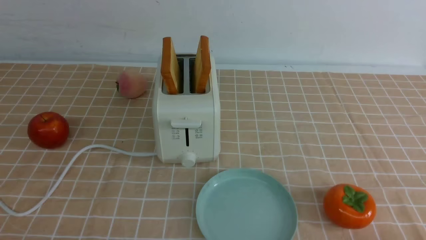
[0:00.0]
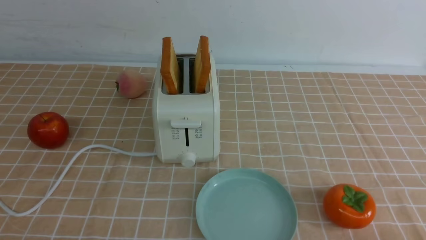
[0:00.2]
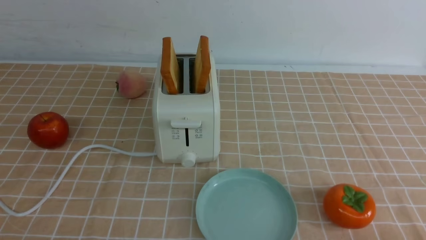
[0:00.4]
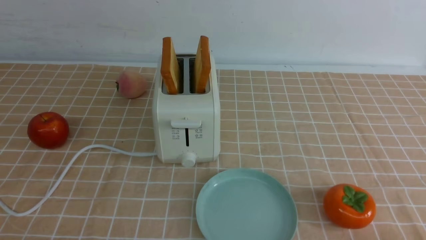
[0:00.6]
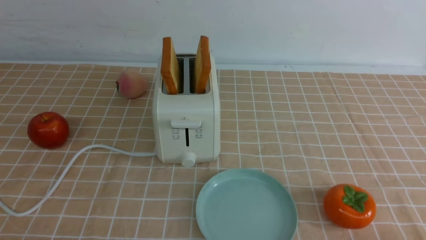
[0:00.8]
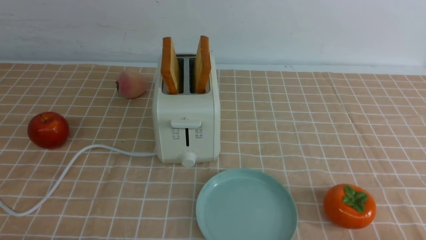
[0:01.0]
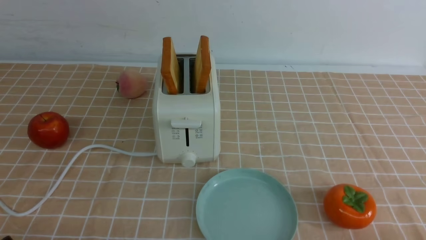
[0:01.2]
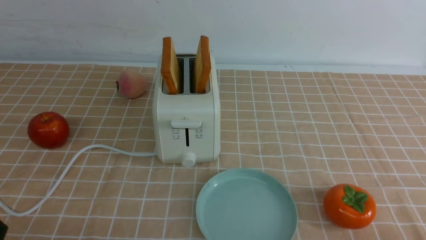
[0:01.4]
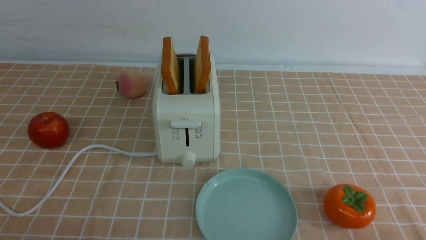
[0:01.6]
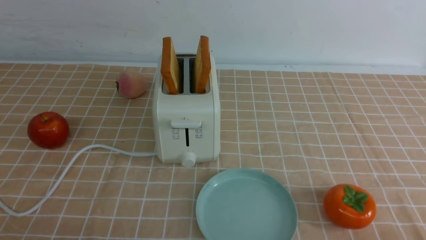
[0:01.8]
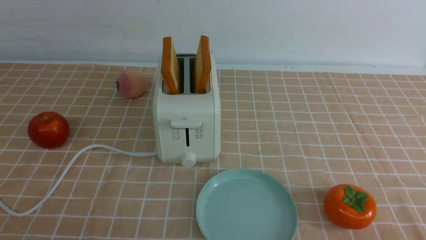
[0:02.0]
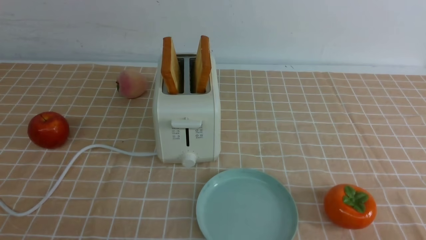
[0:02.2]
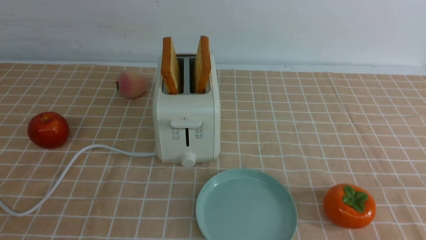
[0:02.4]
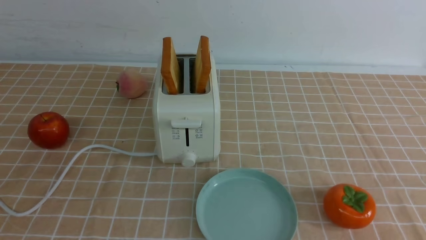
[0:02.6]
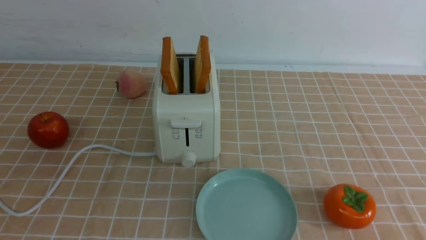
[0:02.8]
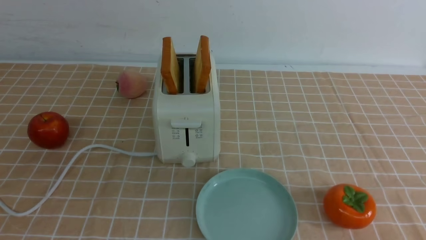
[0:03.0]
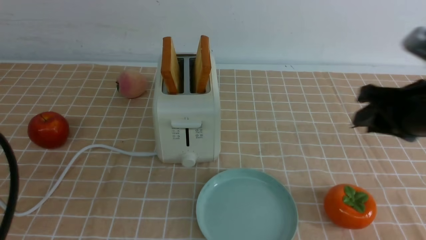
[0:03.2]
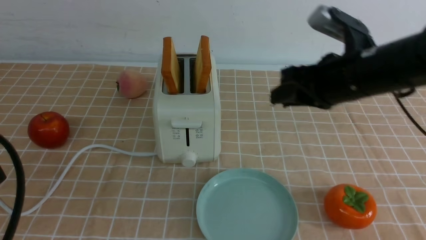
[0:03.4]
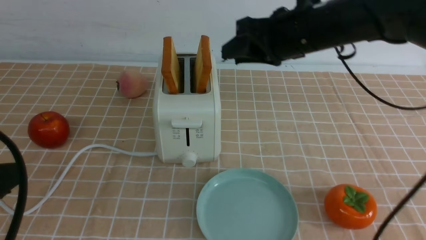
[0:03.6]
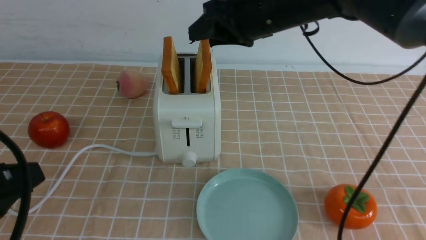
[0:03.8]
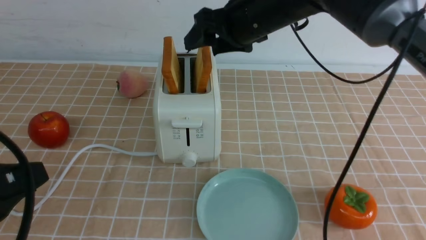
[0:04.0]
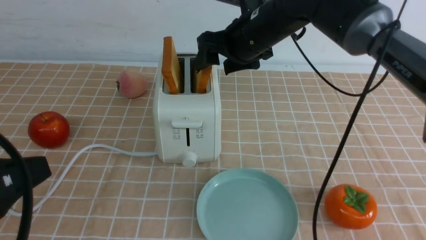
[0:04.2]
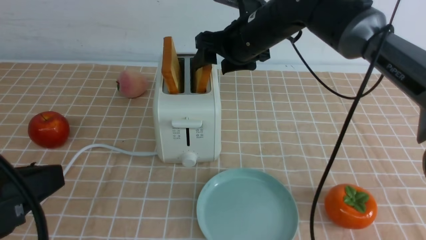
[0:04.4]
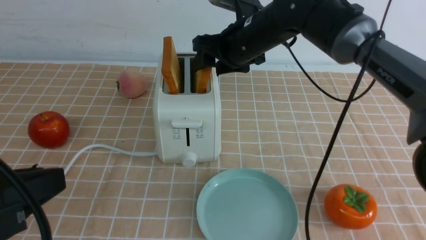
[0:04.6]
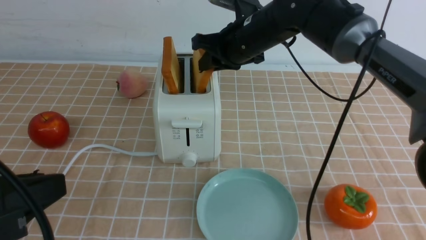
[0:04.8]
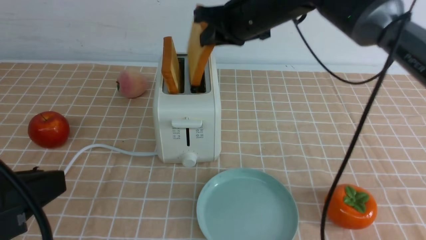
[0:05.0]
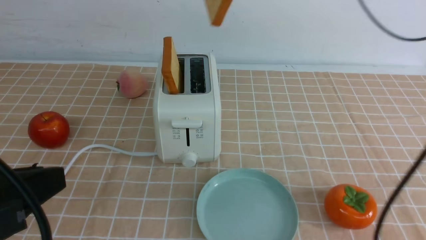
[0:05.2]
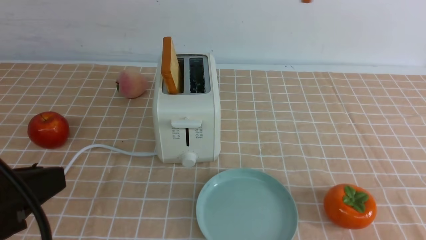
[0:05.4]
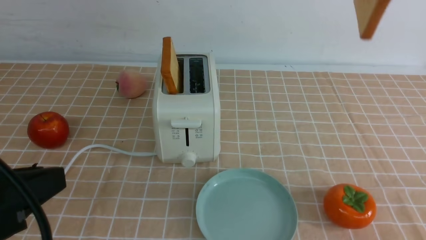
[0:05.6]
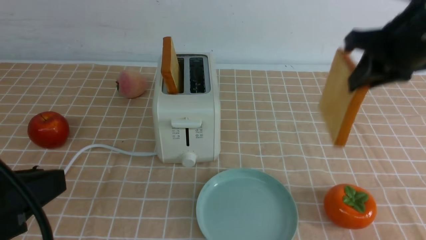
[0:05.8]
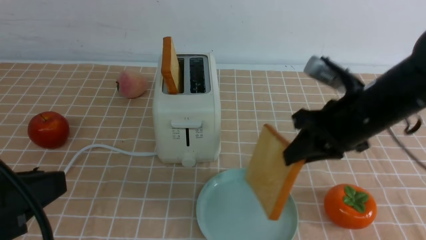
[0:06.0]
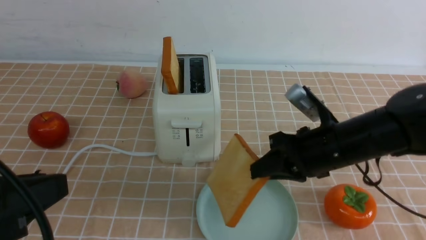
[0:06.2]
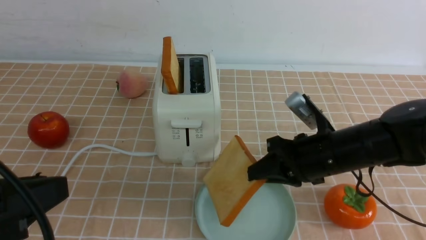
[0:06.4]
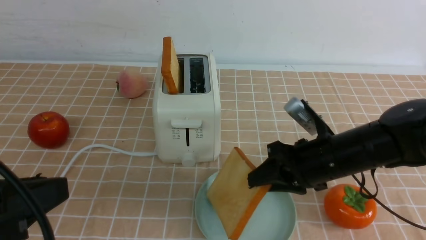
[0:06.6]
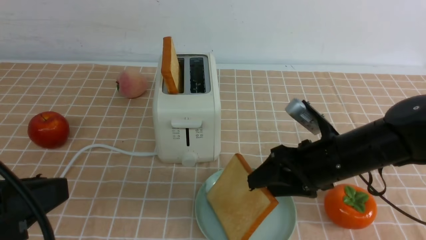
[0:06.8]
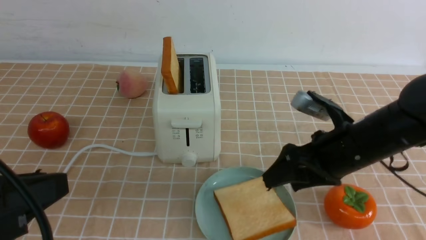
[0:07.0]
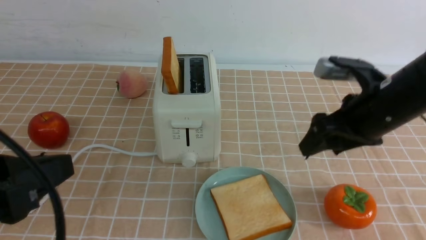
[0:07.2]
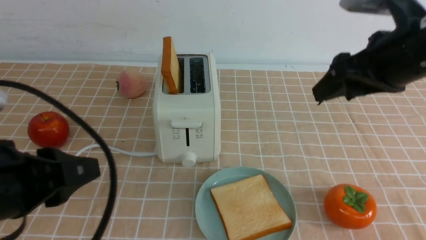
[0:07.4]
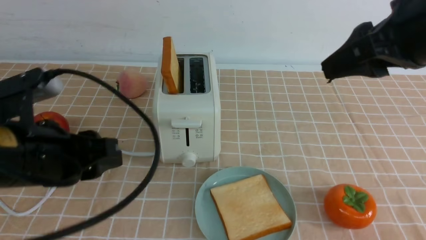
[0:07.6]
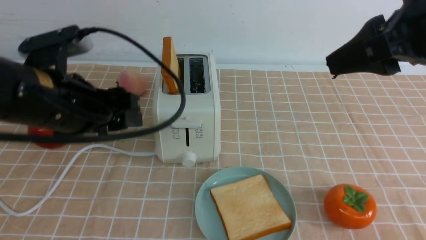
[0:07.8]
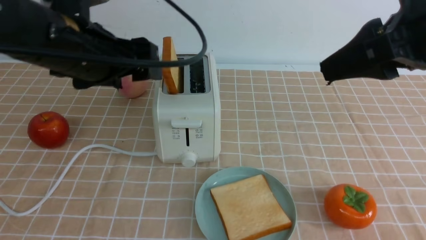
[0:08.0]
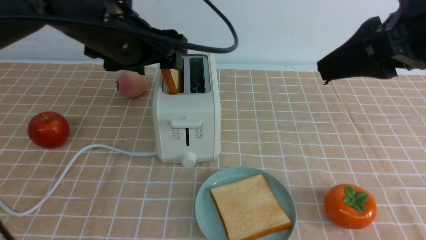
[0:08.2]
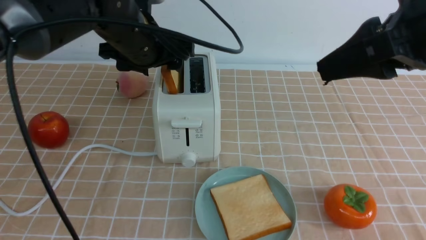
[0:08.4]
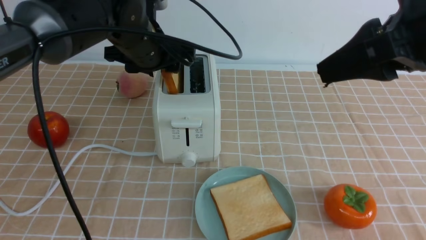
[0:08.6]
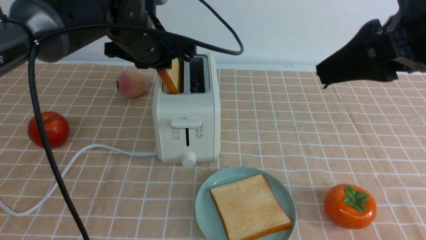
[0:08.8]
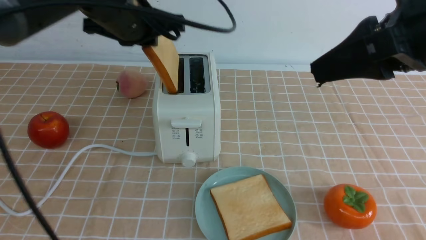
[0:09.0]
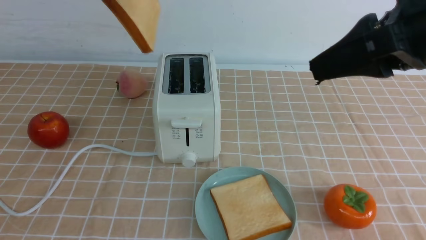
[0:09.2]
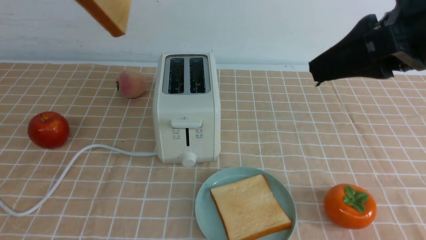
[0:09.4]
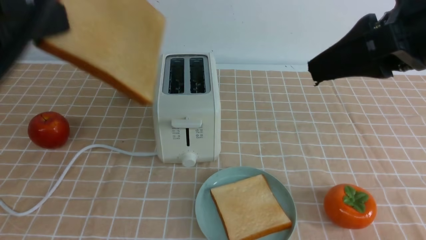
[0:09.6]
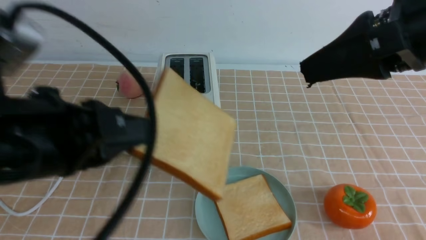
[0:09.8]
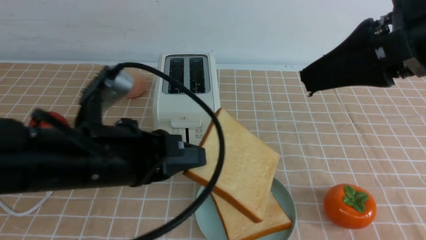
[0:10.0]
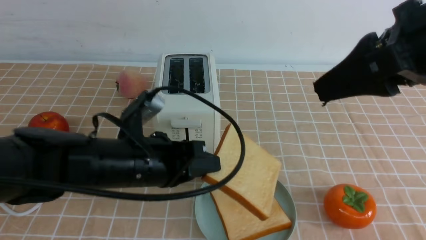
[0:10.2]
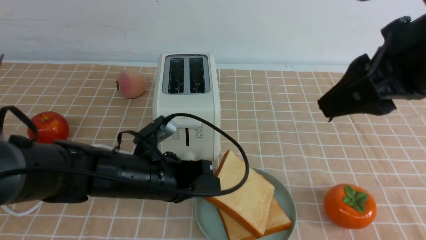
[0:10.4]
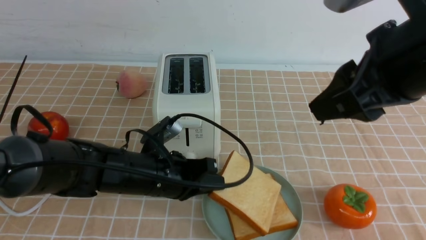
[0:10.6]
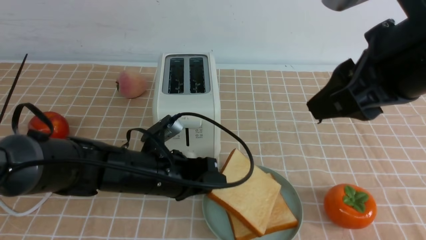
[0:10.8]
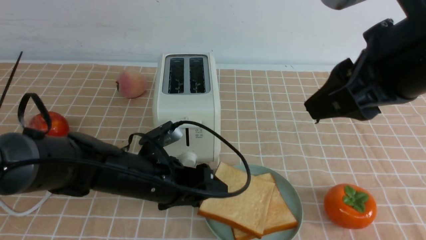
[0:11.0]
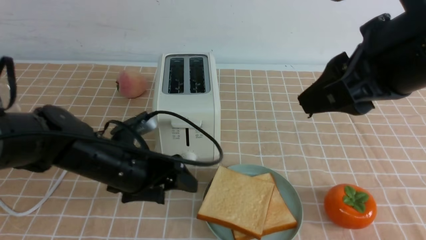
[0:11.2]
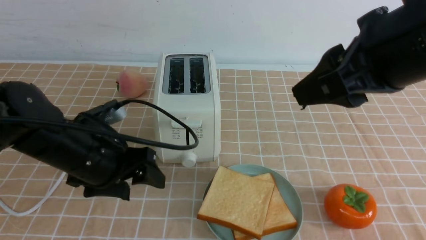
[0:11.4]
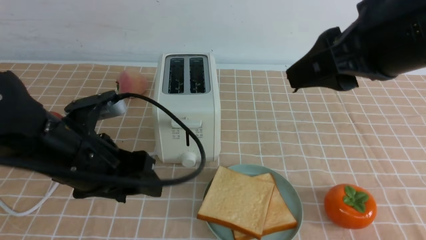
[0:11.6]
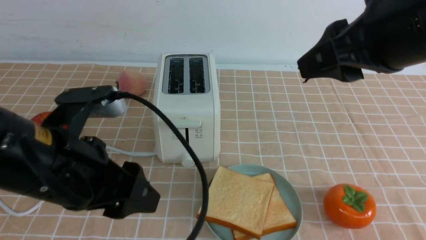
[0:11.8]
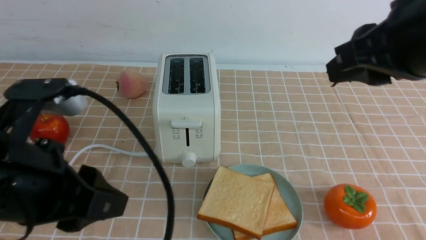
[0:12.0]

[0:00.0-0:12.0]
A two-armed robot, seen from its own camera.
Task of the whole recording: take toasted bread from bread machine on light coffee tablecloth place on plate.
Step, 0:00.0 to 0:05.0: use the right arm to take out a slice of bread.
Step, 0:05.2 to 0:07.0: use the right arm to put a slice of bread into the plate.
Step, 0:07.2 to 0:09.0: use the left arm to take out a slice of bread.
Step, 0:09.2 to 0:11.2: use the left arm to put a slice of bread into the empty plate.
0:03.0 to 0:04.4: The right gripper heads to the left and forward, covering approximately 30 cm, and opens up.
0:04.4 to 0:06.0: The right gripper is displaced backward and to the right by some 20 cm, goes upward and returns, about 15 cm each way, and closes up.
0:06.0 to 0:07.6: The left gripper shifts about 10 cm forward; the right gripper travels upward and backward by approximately 15 cm, and opens.
0:07.6 to 0:09.0: The left gripper moves forward and upward, roughly 20 cm, and closes its fingers.
0:09.0 to 0:10.4: The left gripper is displaced downward by about 20 cm.
0:10.4 to 0:12.0: The left gripper goes about 20 cm upward, backward and to the left, and opens up.

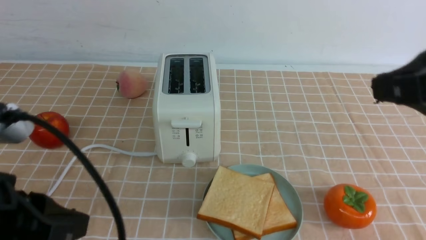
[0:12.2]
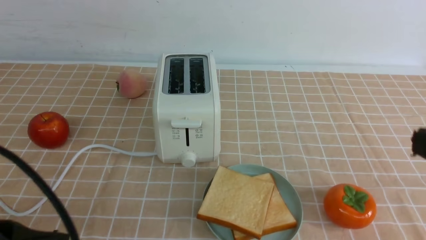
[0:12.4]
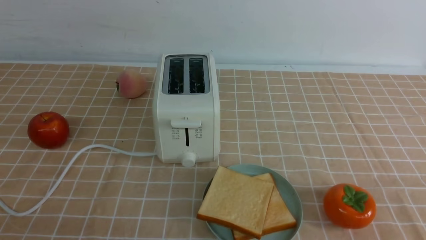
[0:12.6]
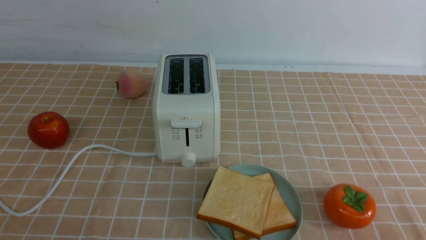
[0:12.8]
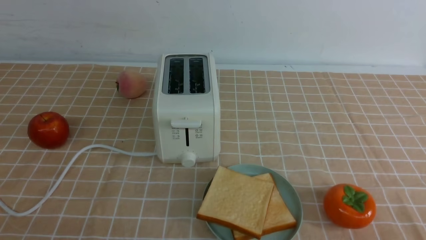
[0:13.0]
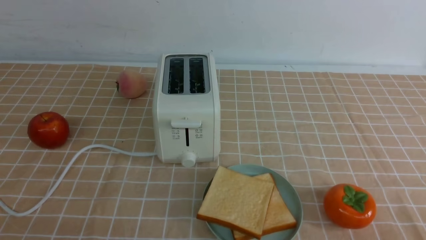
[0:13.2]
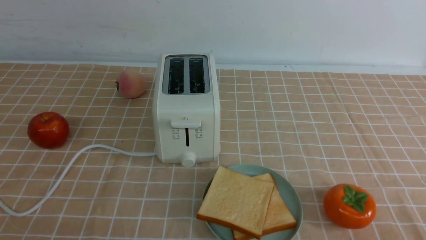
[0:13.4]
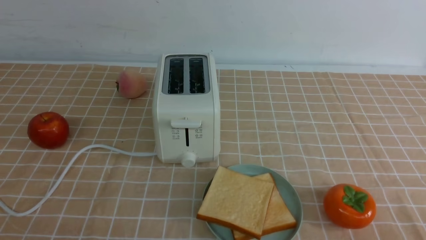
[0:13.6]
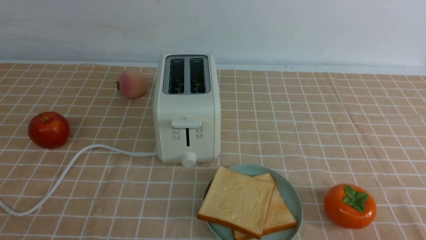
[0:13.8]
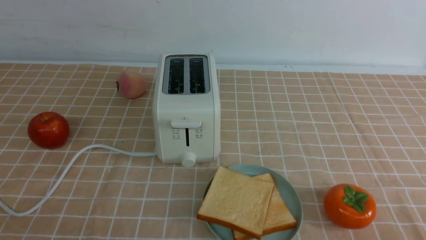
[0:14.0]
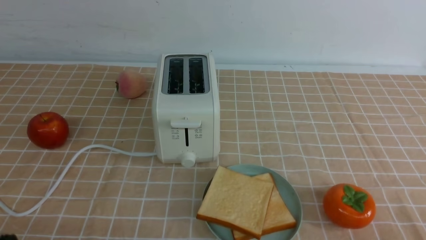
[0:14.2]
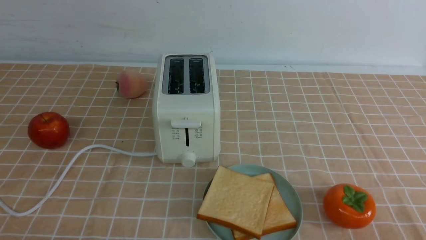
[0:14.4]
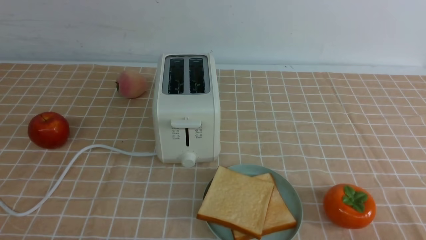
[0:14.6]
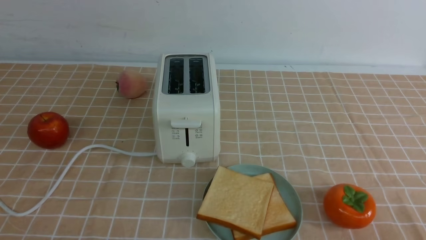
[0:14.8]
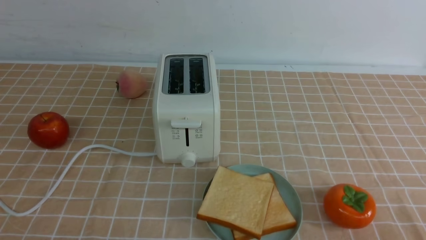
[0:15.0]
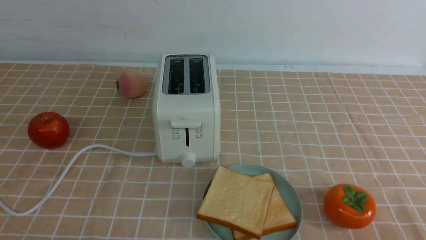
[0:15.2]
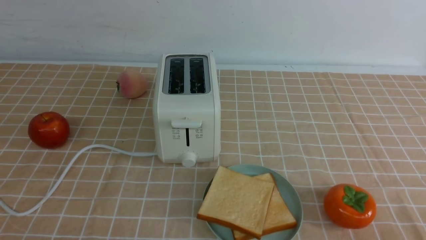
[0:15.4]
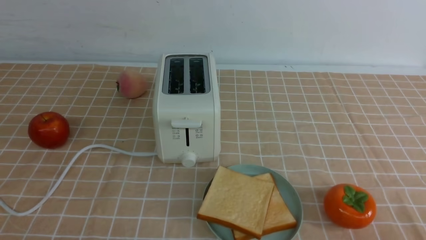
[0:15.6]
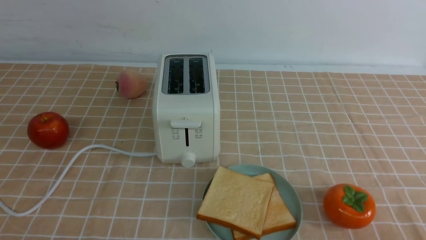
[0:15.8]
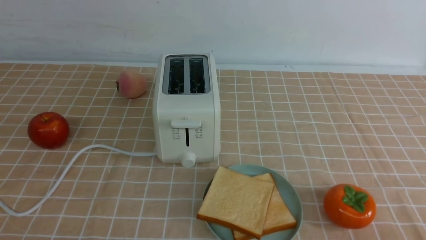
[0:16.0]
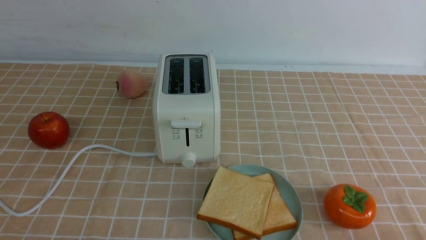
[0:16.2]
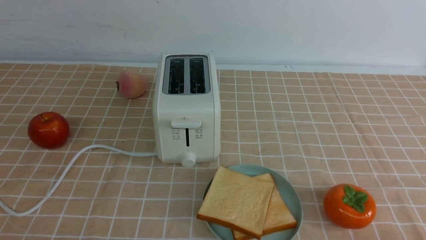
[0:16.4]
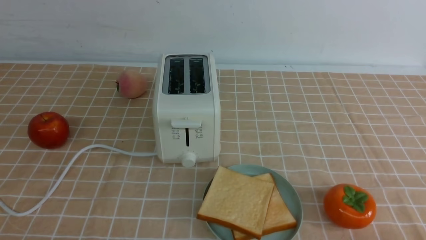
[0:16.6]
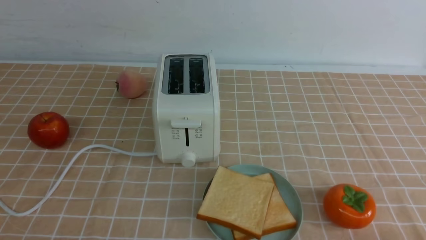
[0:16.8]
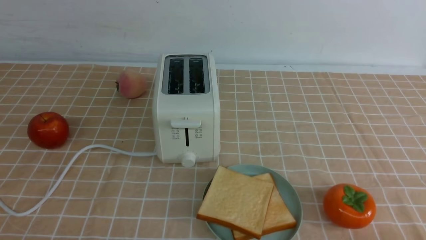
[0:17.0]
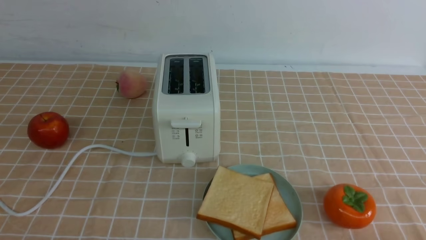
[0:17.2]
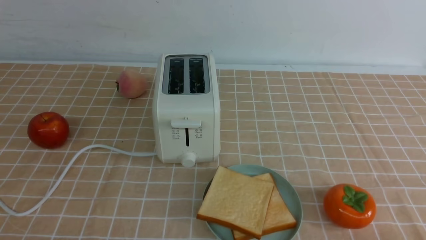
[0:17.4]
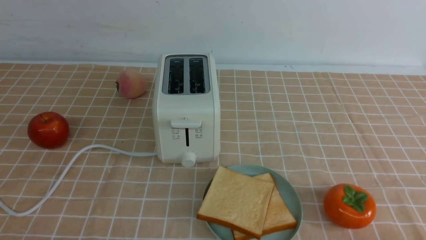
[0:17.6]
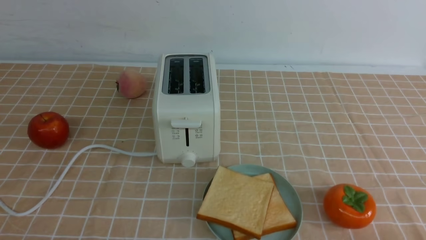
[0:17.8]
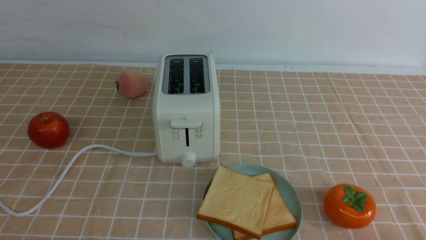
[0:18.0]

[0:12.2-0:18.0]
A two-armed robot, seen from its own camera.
Task of the whole recording: take toasted bread from bread machine on light coffee tablecloth place on plate.
0:12.2 to 0:13.6: The left gripper shifts approximately 10 cm backward; the right gripper heads downward, backward and to the right, covering approximately 20 cm.
